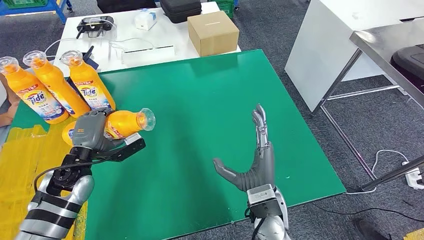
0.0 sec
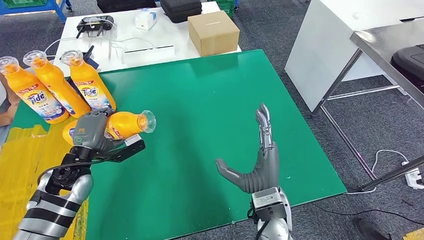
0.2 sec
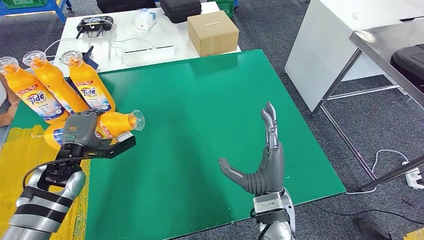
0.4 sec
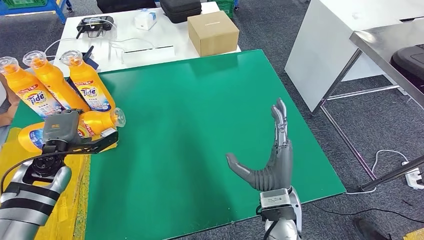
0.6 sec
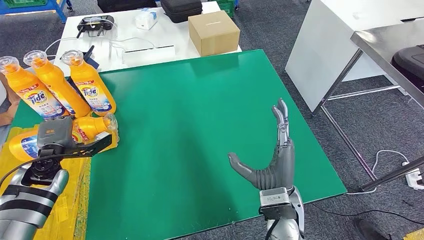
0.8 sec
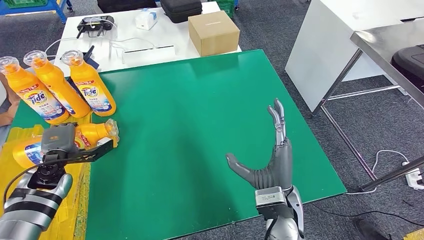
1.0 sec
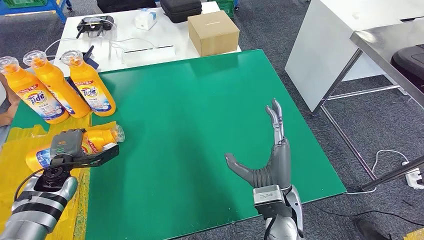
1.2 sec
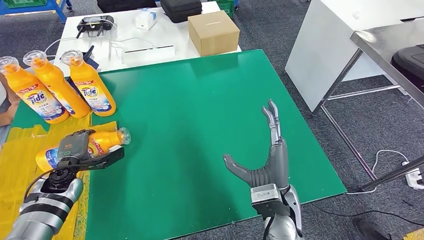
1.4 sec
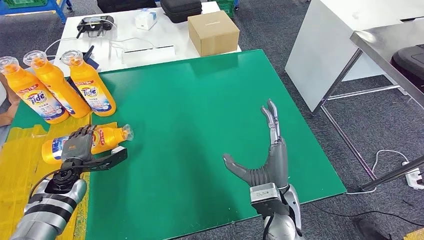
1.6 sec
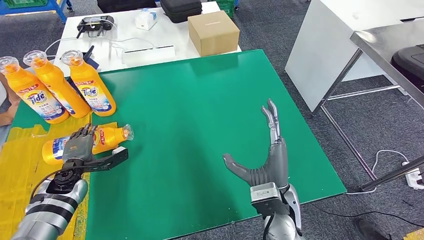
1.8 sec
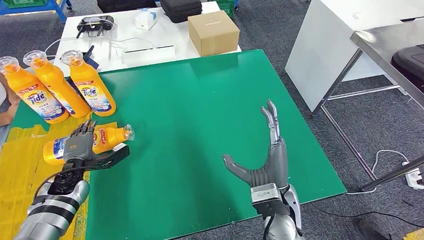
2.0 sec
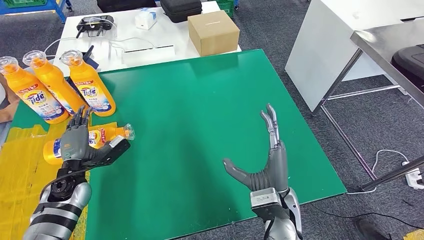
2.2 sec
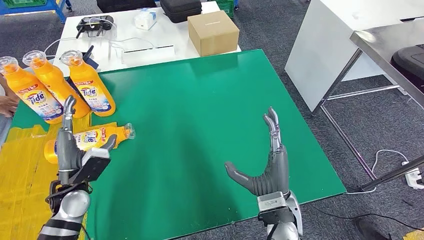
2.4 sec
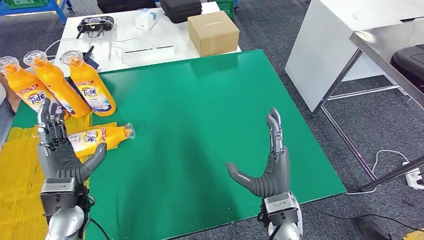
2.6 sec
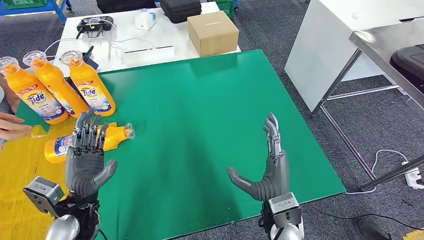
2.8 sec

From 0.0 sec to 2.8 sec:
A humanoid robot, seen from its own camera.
Step, from 0.0 sec to 2.8 sec: Flip the bottle to face forward.
From 0.0 sec to 1.4 sec: The left hand shifts about 10 cm to the left and downward.
From 1.4 sec to 2.8 sec: The left hand goes some 15 cm backward, to the right and upward.
